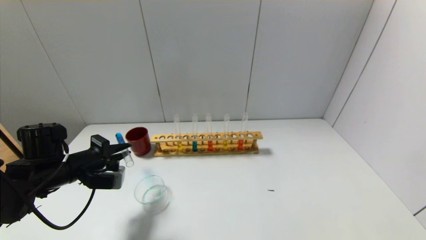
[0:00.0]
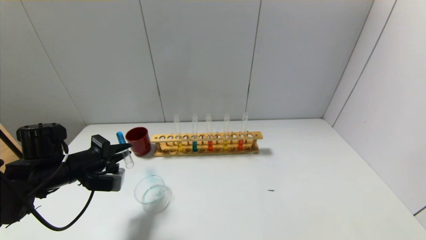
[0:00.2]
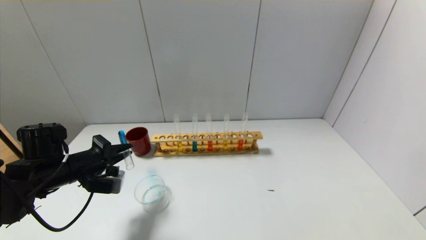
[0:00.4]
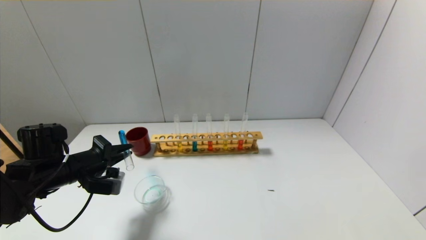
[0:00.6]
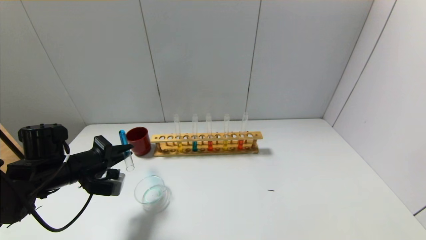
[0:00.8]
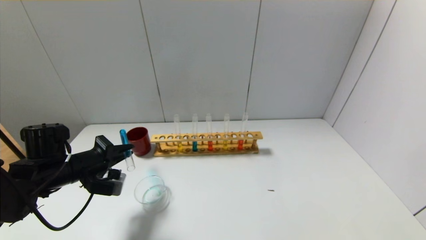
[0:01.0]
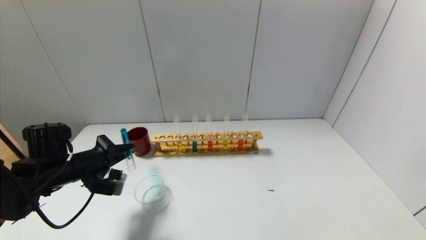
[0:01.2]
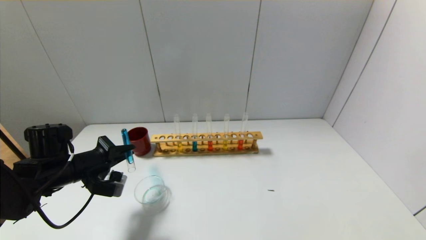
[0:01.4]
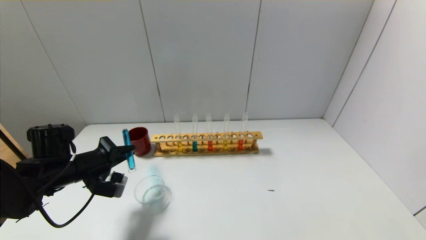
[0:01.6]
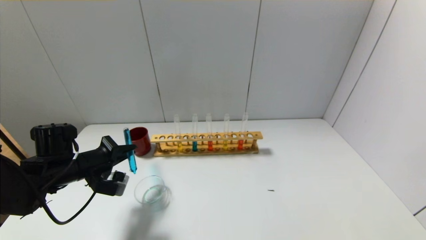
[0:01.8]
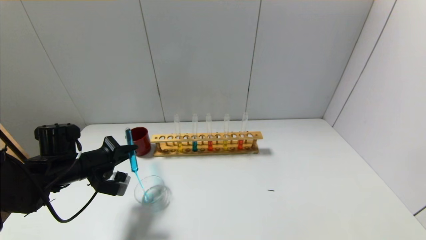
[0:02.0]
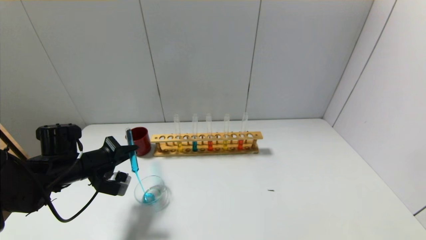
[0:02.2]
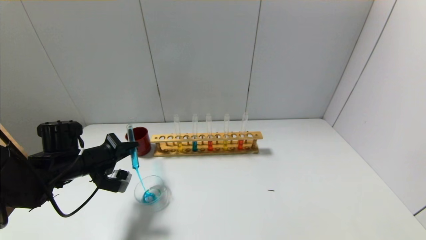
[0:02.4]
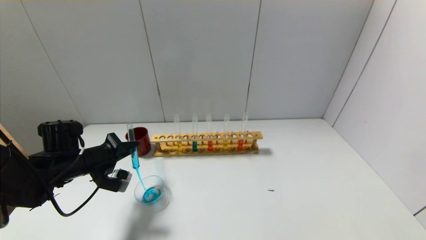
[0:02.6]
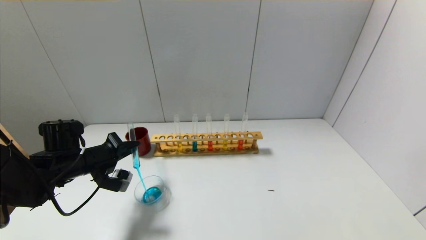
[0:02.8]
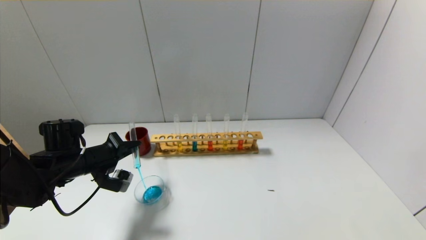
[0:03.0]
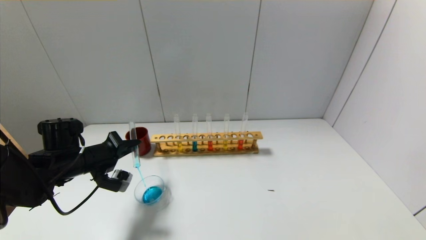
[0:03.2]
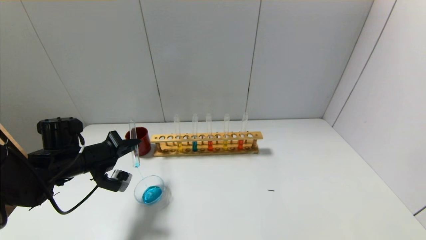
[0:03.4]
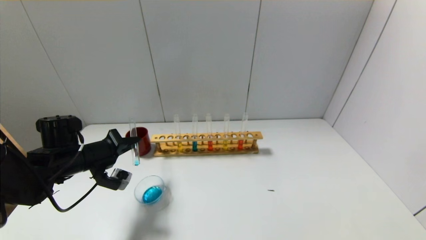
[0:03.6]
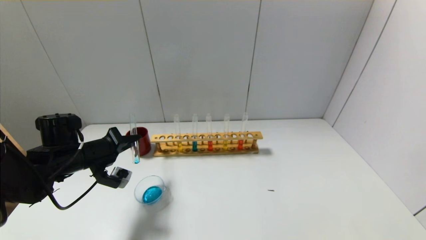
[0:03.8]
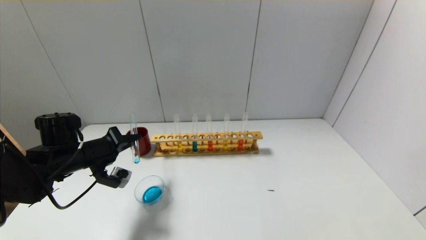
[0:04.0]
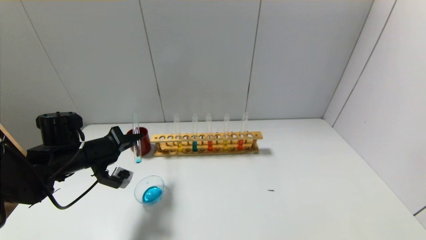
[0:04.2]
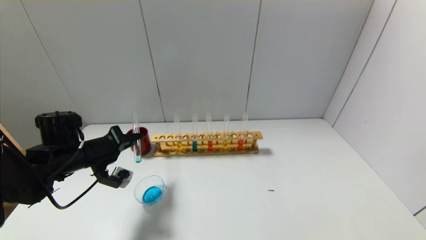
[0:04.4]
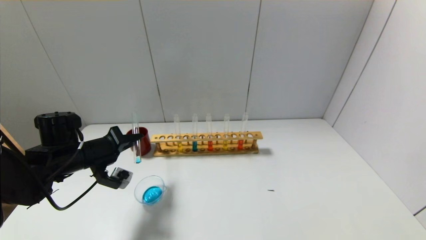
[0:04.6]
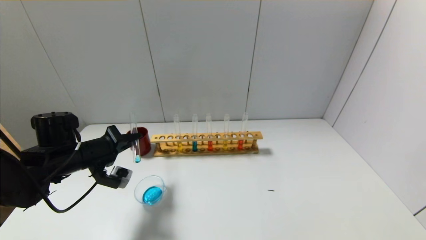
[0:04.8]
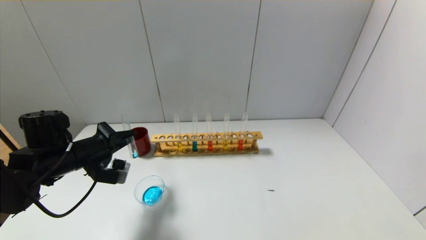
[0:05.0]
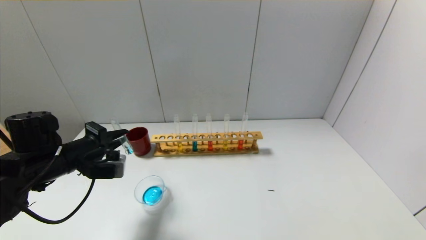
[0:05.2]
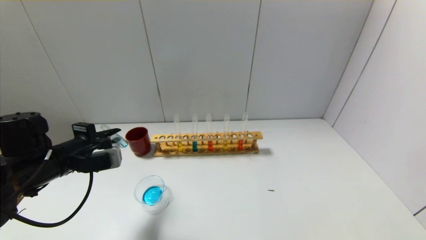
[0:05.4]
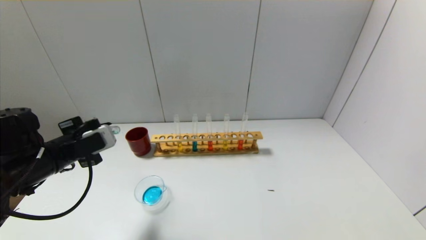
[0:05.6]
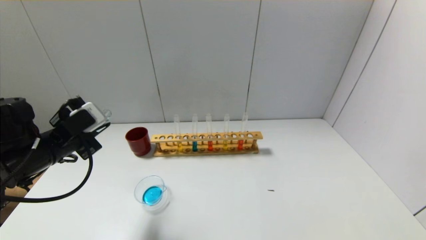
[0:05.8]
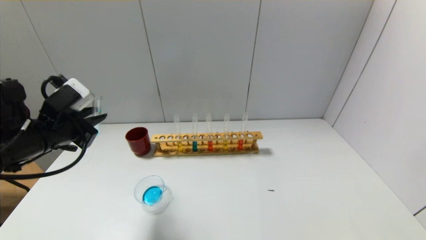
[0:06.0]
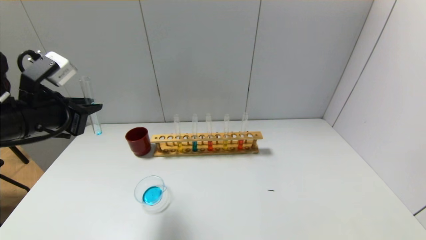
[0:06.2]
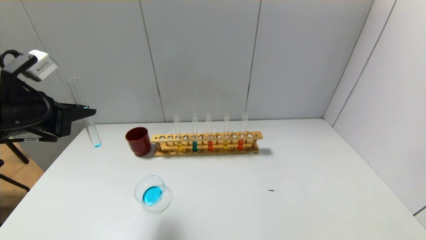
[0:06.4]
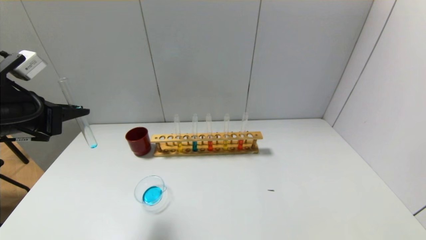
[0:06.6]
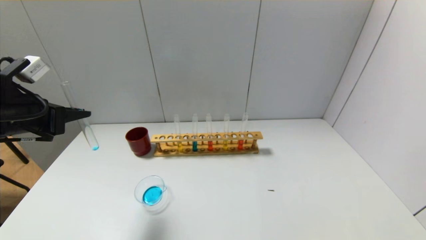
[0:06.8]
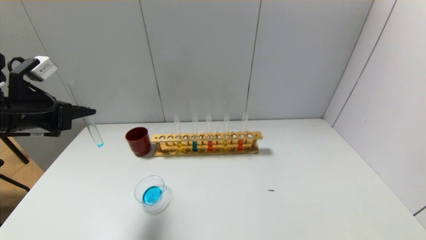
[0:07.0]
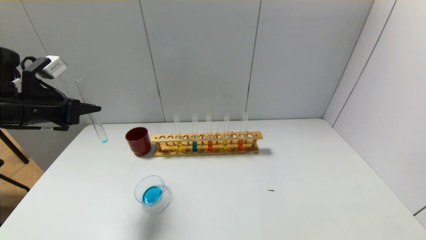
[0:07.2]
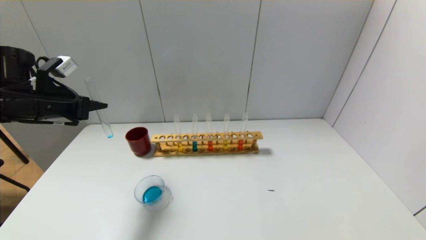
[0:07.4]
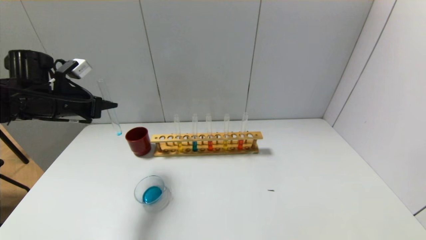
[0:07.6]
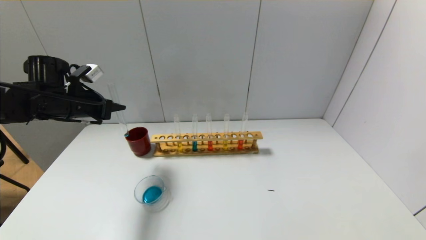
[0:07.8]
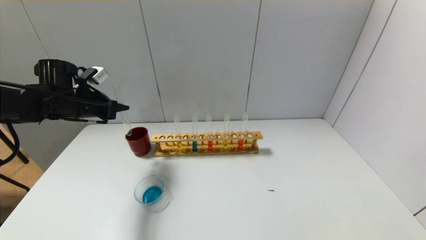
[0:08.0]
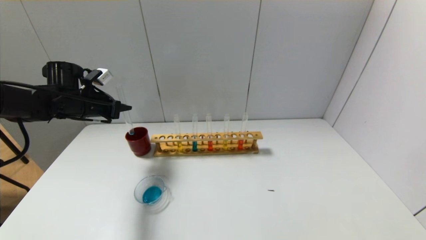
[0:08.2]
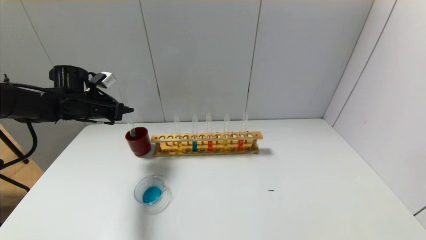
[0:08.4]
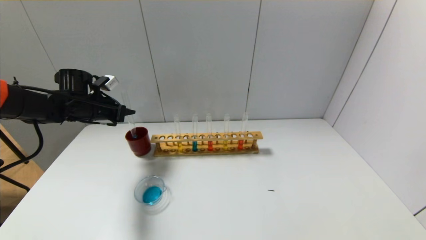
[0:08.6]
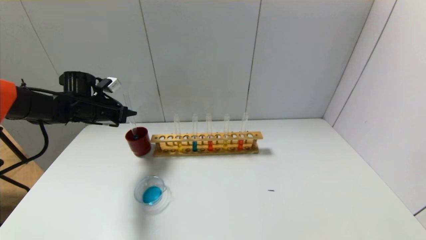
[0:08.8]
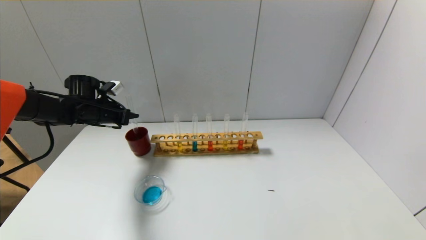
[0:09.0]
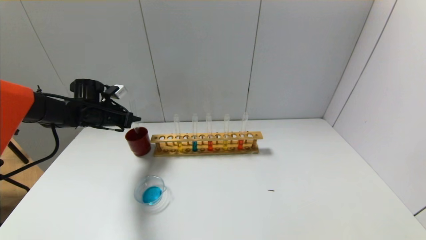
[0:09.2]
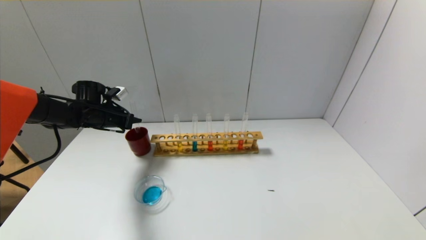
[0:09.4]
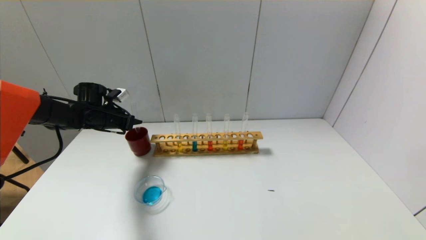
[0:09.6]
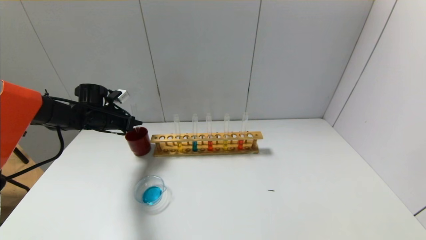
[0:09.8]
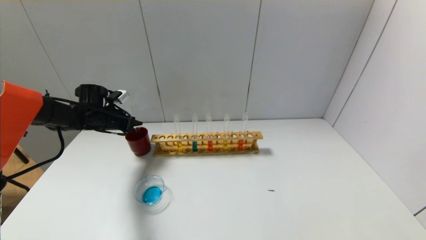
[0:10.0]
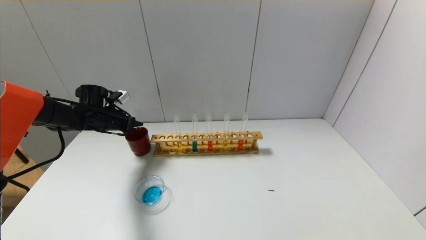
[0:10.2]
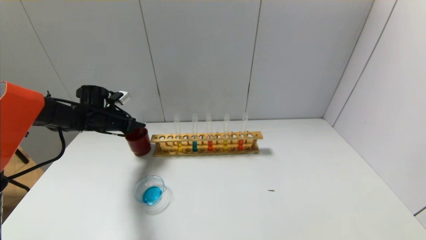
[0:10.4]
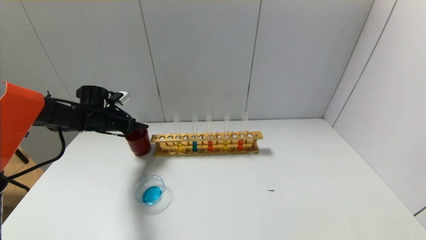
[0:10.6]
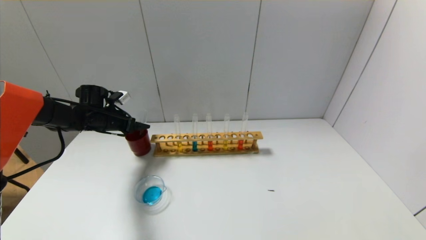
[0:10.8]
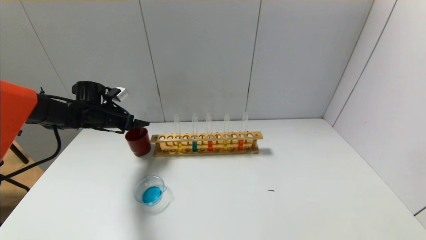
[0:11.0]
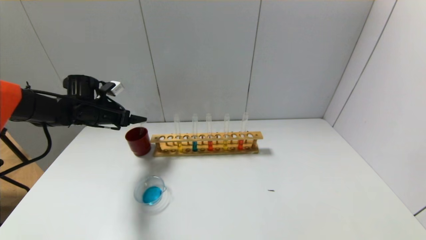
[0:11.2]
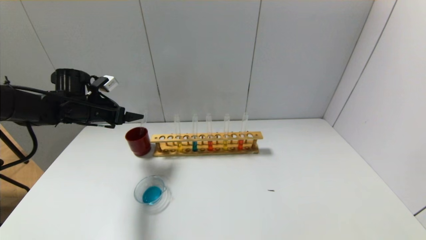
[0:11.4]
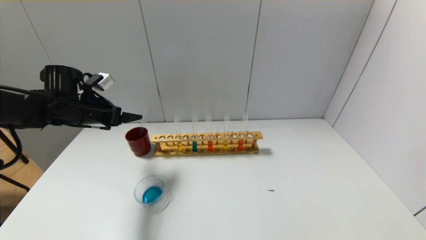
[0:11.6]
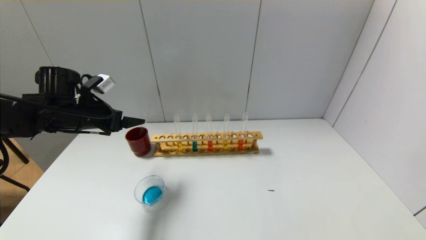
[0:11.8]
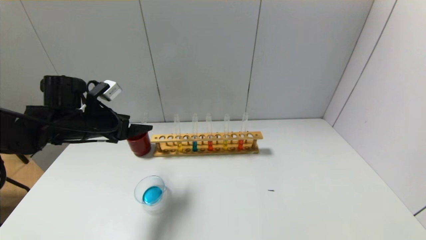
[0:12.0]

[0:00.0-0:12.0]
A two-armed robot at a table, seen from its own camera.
Step, 0:00.0 to 0:05.0: Pour the blue reagent into the graduated cylinder with the left gripper.
Step, 0:05.2 to 0:10.4: Place the test tube into the brown cup with the left gripper.
0:00.0 to 0:01.6: The grippers make only small movements.
0:01.6 to 0:04.4: The grippers stay close to where they were, moving slightly.
0:04.4 to 0:06.0: The left gripper heads upward and backward, covering approximately 10 cm.
0:06.0 to 0:07.6: The left gripper goes about 10 cm forward.
0:07.6 to 0:09.0: The left gripper shifts about 10 cm forward and downward.
0:09.0 to 0:10.4: The left gripper opens.
0:10.4 to 0:12.0: The left gripper shifts about 15 cm backward, upward and to the right, and opens.

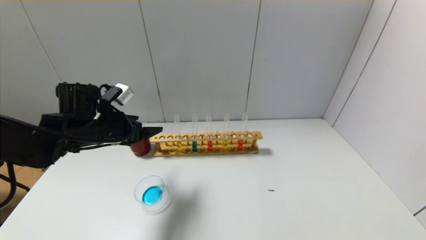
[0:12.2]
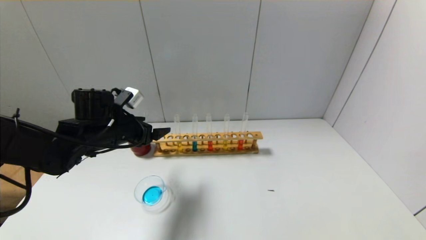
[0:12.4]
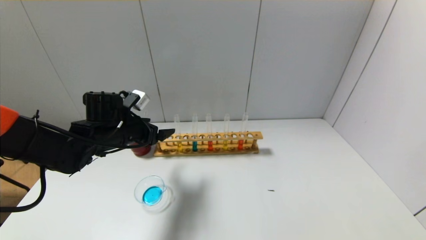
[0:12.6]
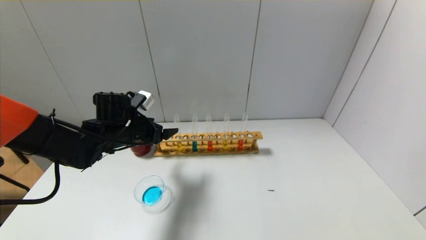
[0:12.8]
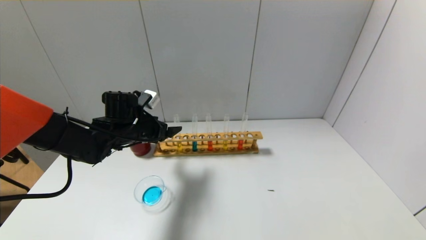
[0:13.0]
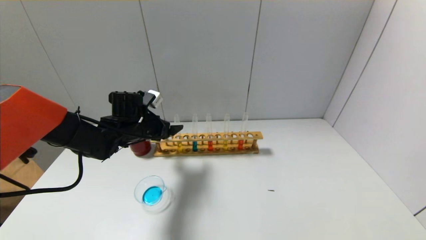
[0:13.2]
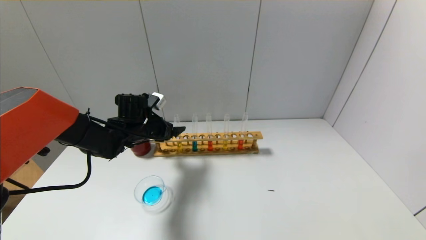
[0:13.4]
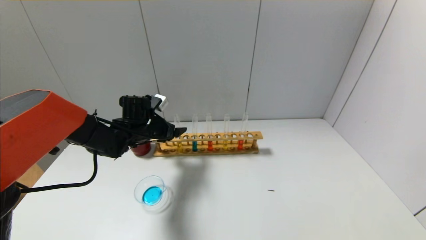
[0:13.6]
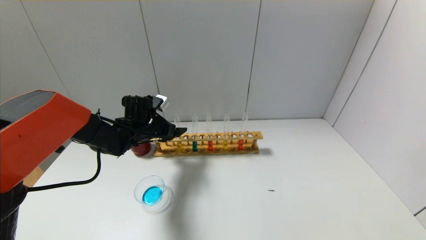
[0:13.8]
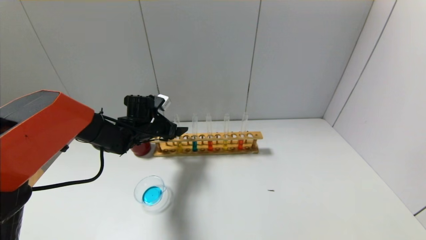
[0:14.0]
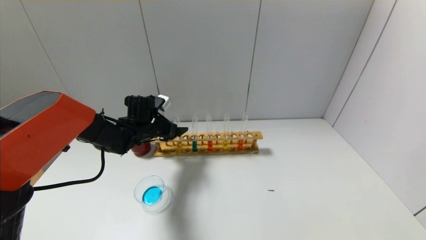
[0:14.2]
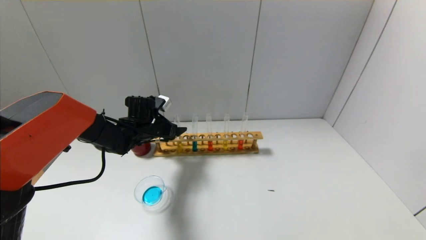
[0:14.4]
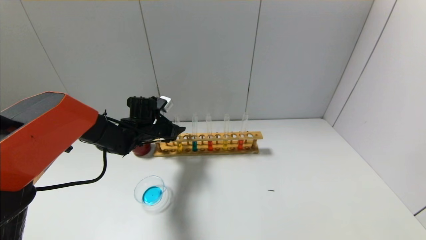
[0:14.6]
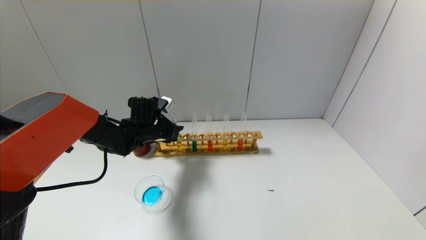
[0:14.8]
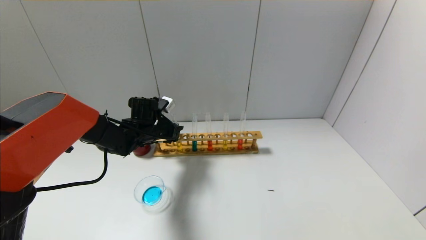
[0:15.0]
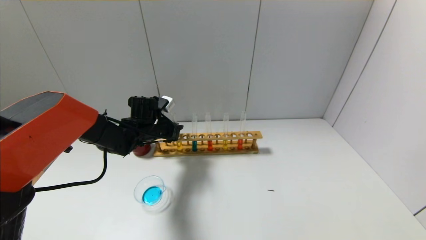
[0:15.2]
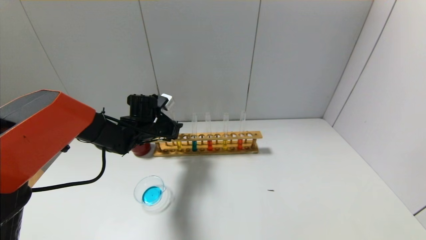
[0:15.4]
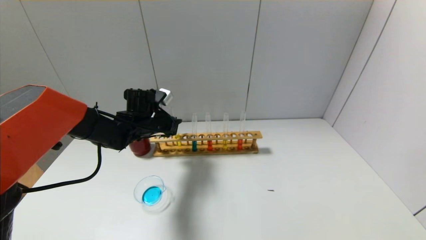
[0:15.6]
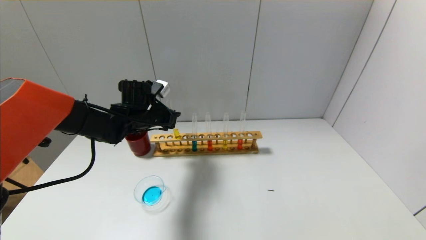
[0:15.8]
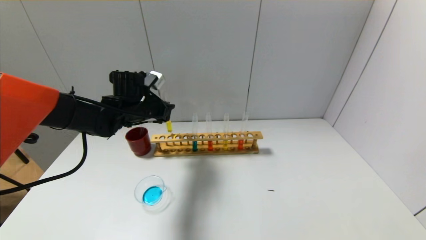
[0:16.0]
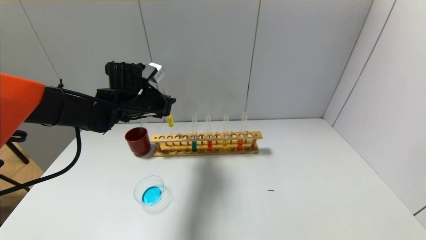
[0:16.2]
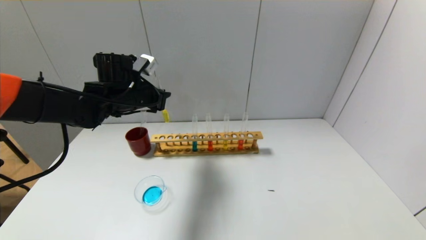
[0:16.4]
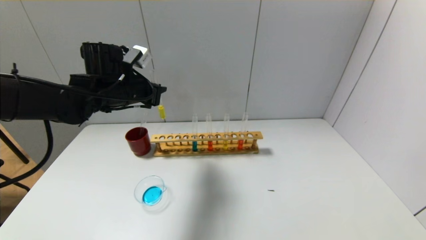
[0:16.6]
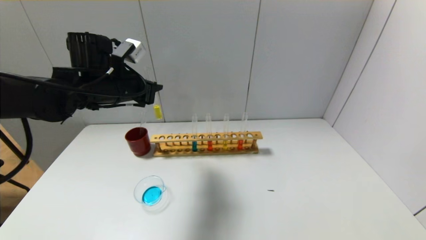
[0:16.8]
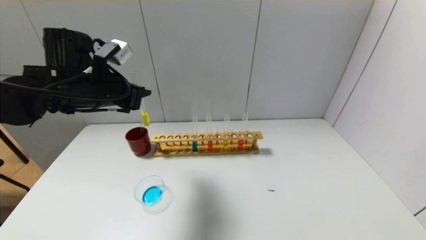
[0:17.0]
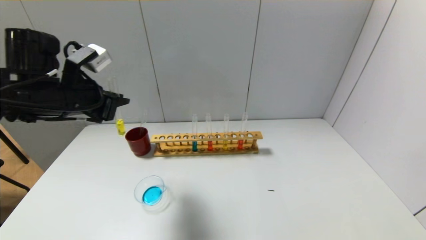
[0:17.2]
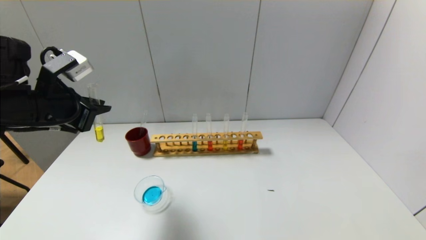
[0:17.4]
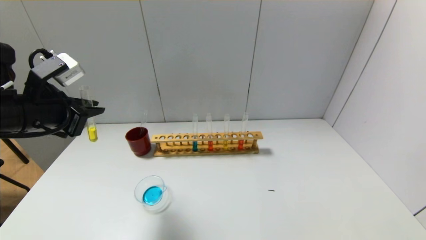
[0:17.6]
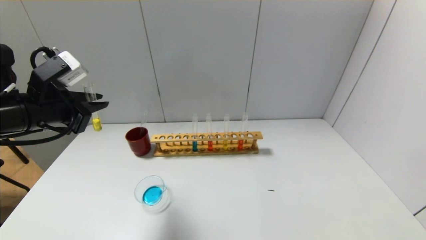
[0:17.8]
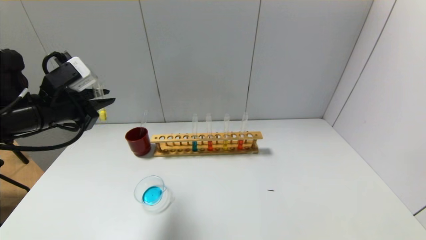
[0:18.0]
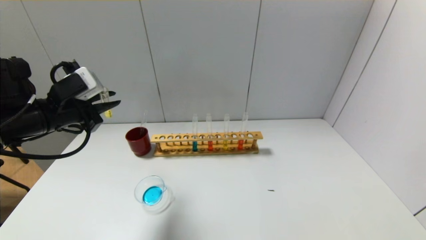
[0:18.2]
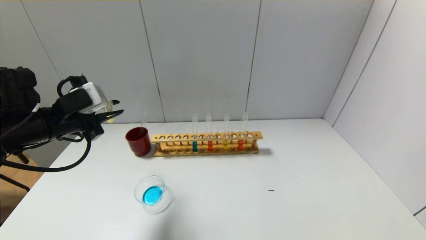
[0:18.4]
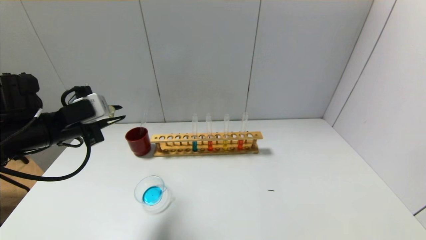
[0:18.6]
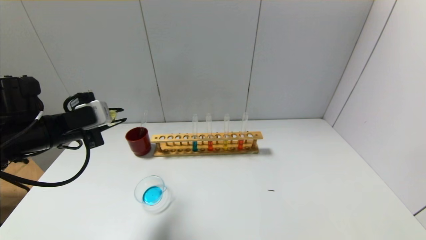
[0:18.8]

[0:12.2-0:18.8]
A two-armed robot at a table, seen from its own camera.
Step, 0:12.2 to 0:14.8: Grasp the yellow reagent with the left gripper.
0:12.2 to 0:13.8: The left gripper heads forward, downward and to the right, covering roughly 15 cm.
0:13.8 to 0:15.4: The left gripper closes.
0:15.4 to 0:17.2: The left gripper heads upward, backward and to the left, covering about 20 cm.
0:17.2 to 0:18.8: The left gripper goes about 5 cm downward.
